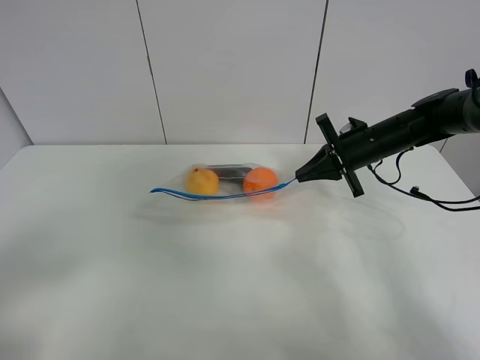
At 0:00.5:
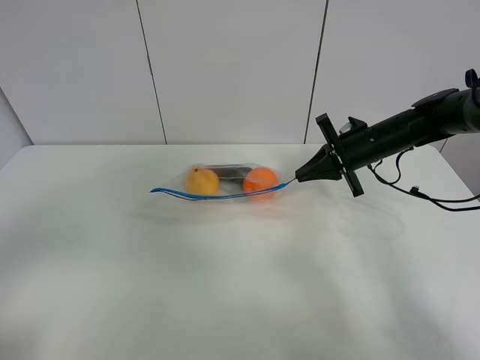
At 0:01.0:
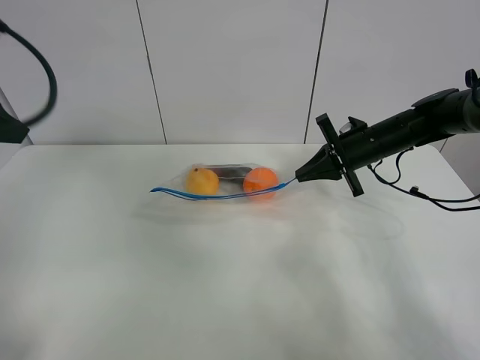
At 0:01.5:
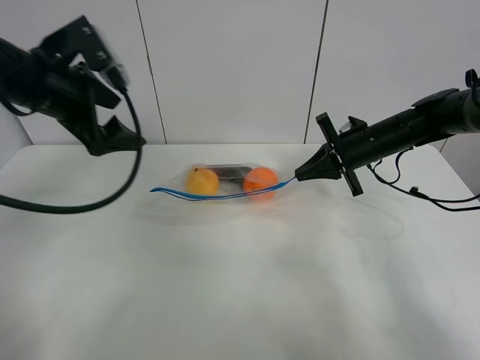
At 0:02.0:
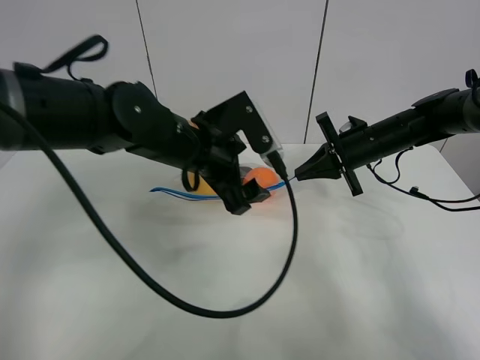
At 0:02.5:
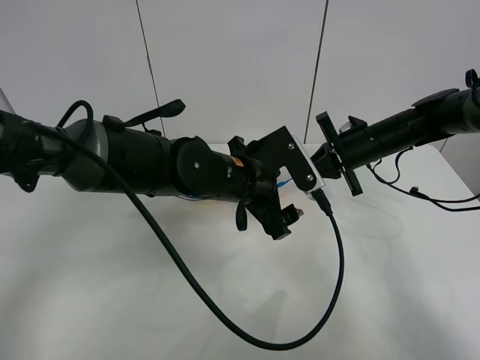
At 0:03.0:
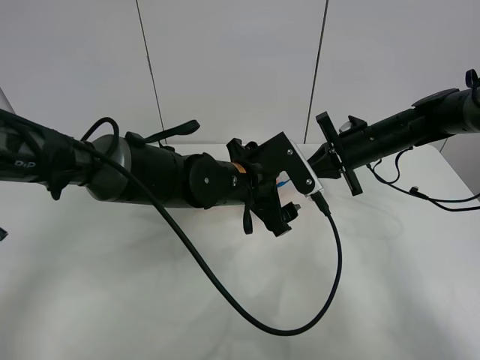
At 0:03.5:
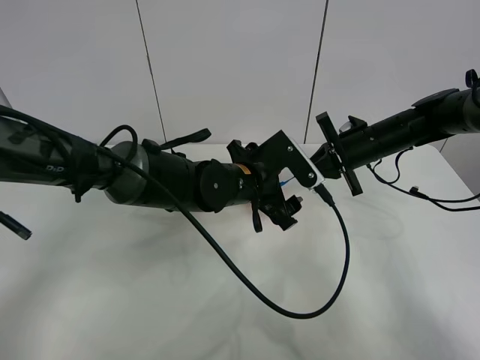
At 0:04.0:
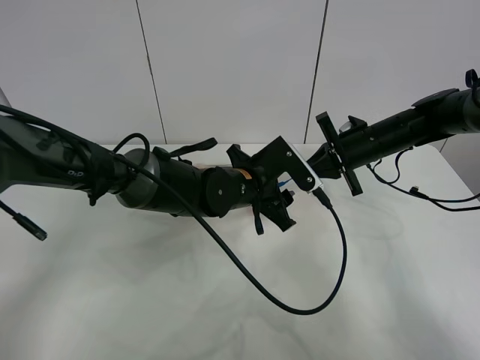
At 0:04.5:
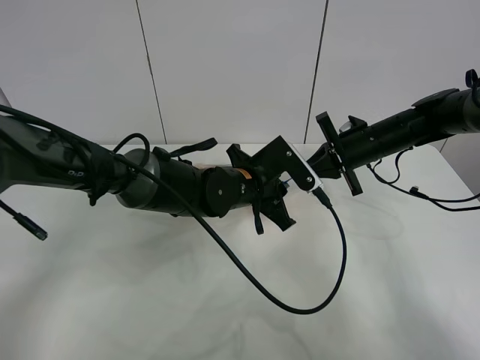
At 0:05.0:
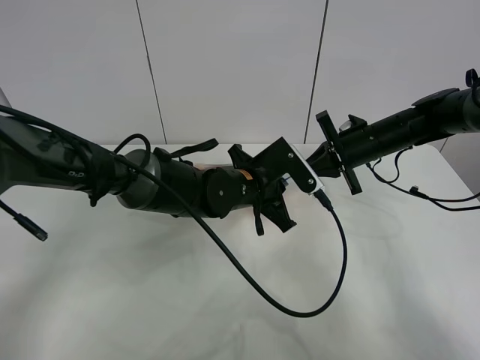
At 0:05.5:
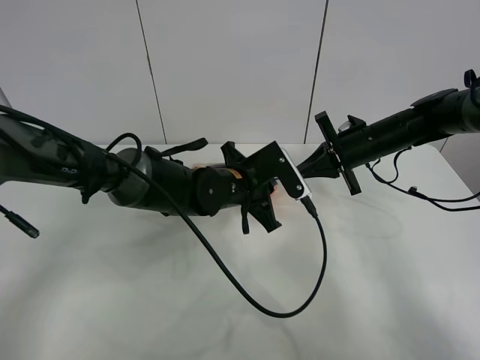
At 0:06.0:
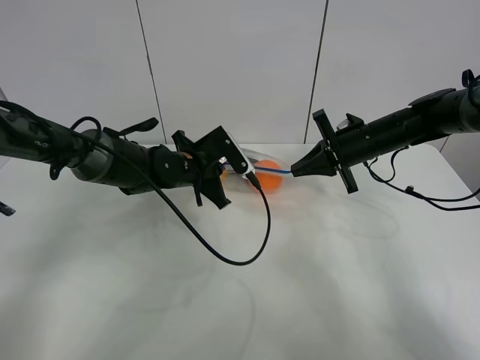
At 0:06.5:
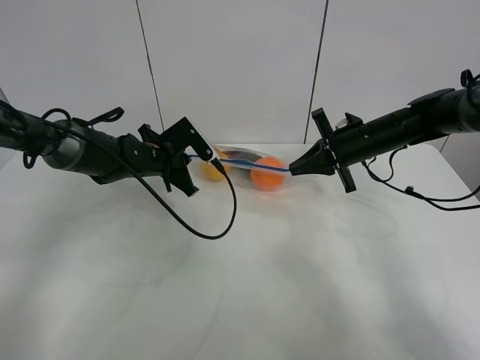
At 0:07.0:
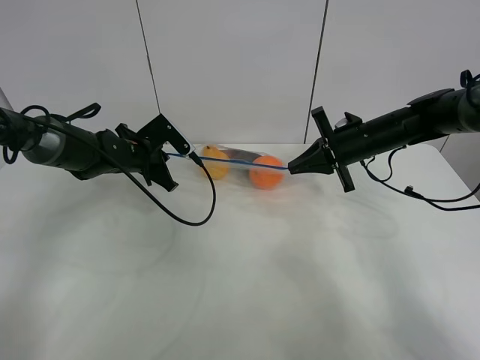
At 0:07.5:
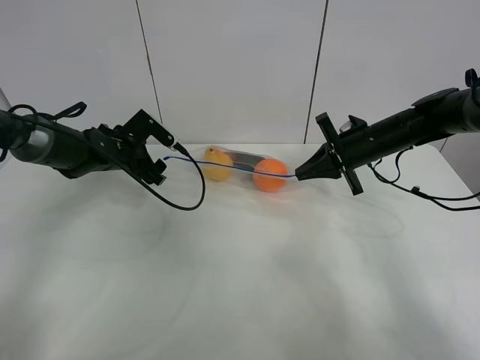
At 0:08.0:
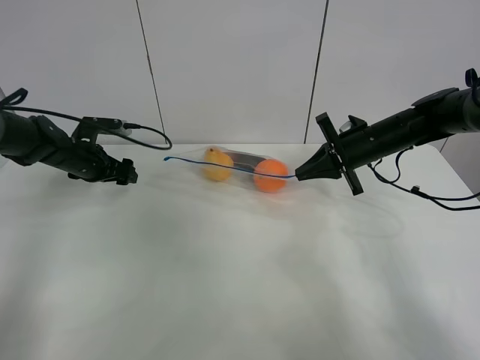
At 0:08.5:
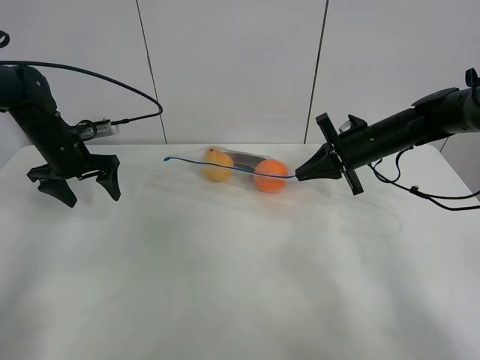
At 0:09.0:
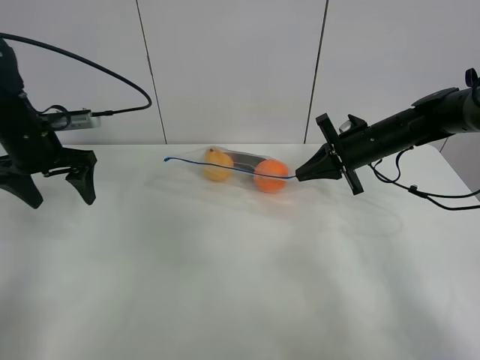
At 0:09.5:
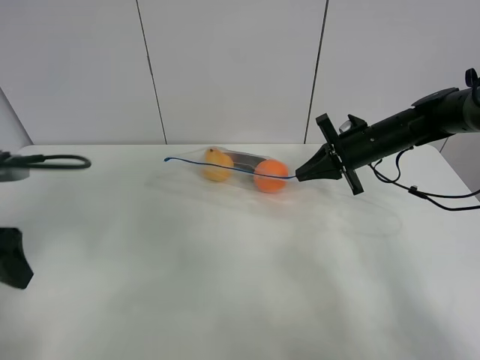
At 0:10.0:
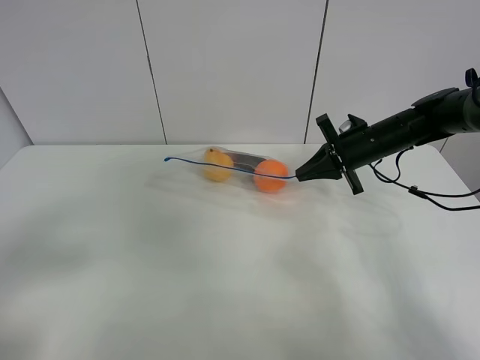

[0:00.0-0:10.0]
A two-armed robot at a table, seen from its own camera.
Step, 0:00.5 to 0:07.0: Pull the fruit bag with left gripper.
0:00.0 to 0:02.0: The left gripper travels forward and to the right by about 40 cm.
0:02.0 to 0:04.0: The left gripper shifts roughly 10 cm downward and to the right, and closes up.
0:04.0 to 0:06.0: The left gripper goes some 10 cm to the left and forward, and closes.
0:06.0 to 0:08.0: The left gripper moves to the left, roughly 20 cm, and opens.
0:08.0 to 0:10.0: The left gripper is displaced backward by about 35 cm.

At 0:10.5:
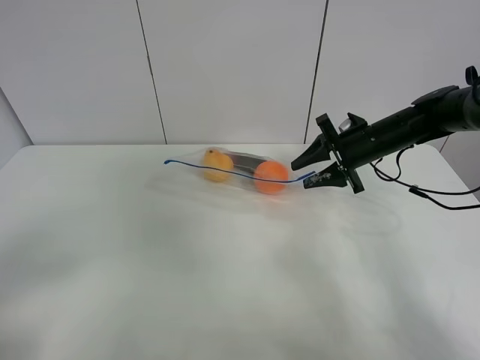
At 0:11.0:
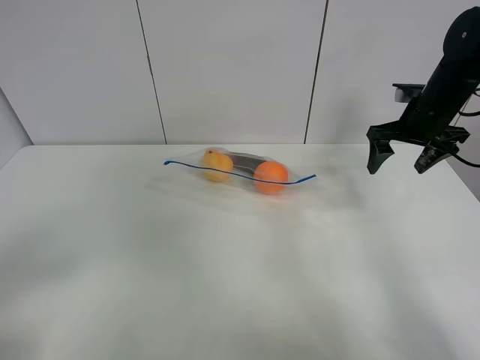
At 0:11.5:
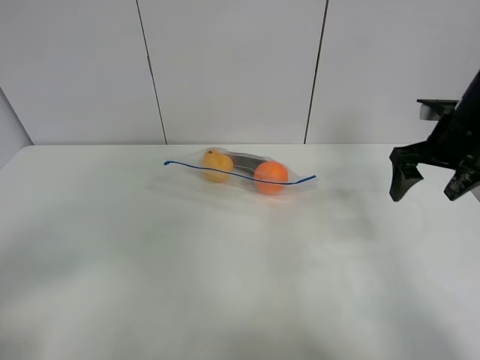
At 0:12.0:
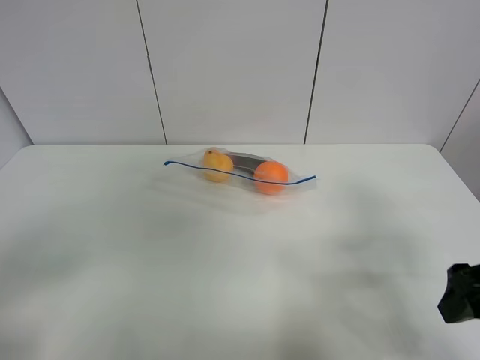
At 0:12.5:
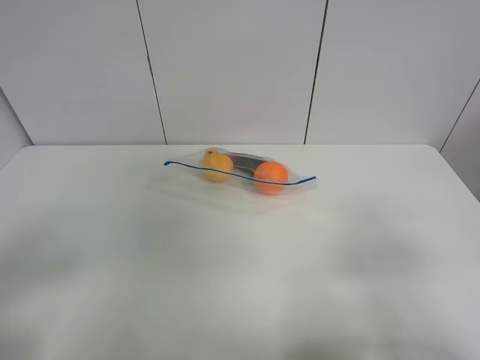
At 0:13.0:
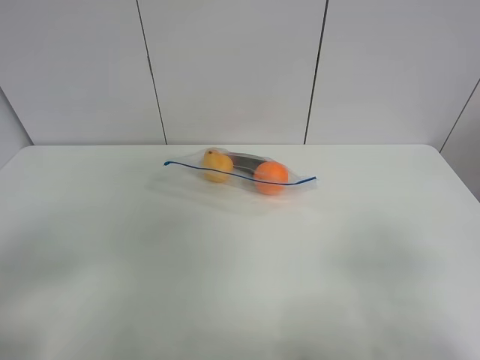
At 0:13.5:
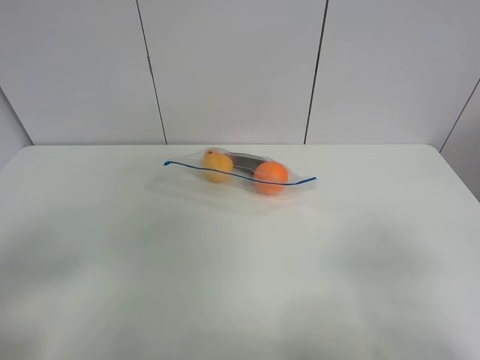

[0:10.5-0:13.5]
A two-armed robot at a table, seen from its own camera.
0:10.5 to 0:12.0: The right gripper goes roughly 25 cm backward.
0:12.0 to 0:13.5: The right gripper travels backward by some 15 cm.

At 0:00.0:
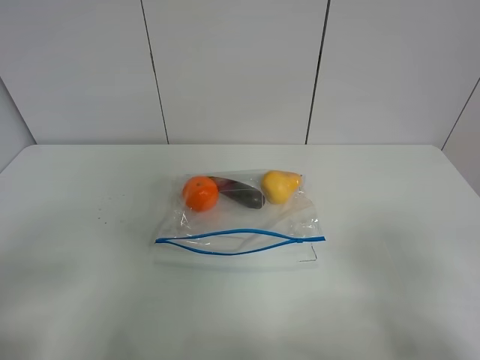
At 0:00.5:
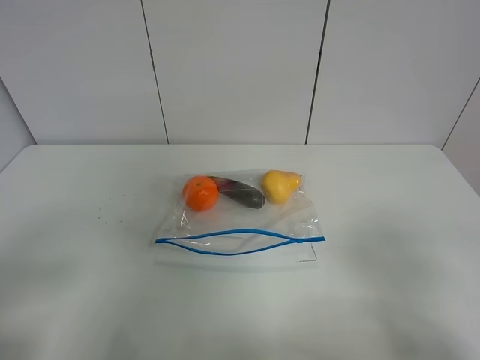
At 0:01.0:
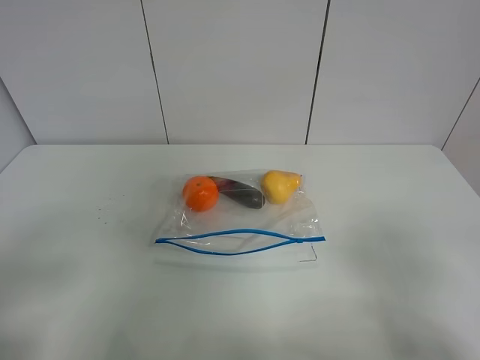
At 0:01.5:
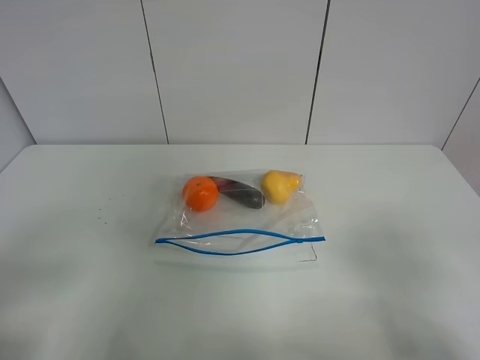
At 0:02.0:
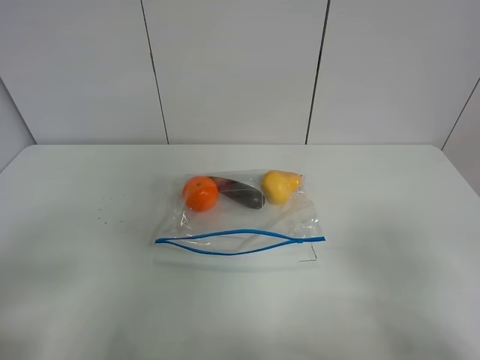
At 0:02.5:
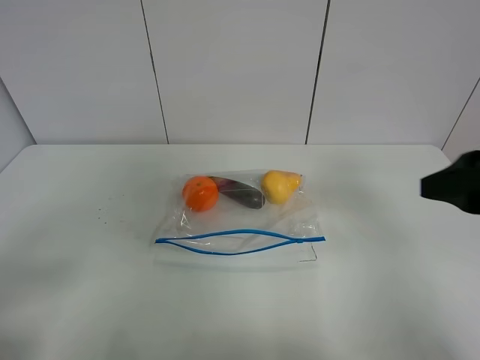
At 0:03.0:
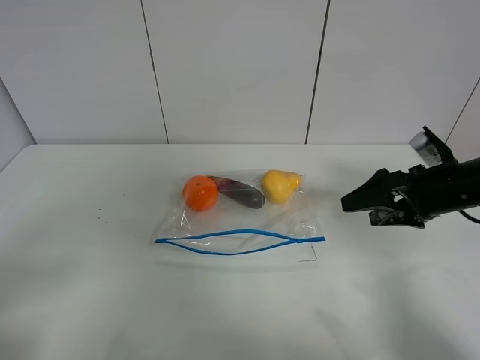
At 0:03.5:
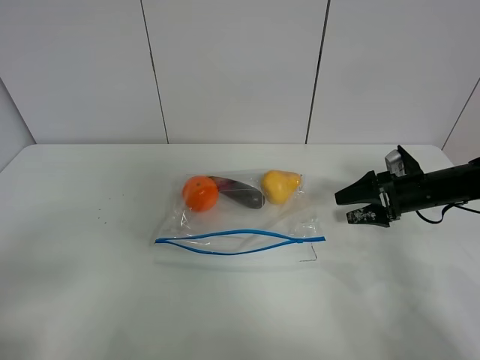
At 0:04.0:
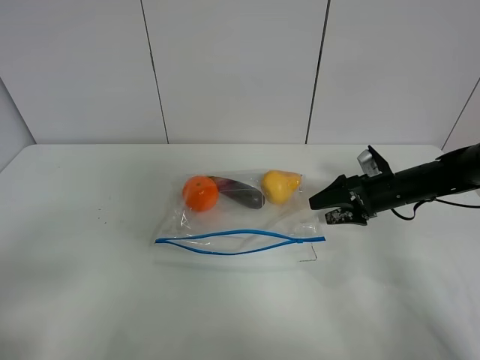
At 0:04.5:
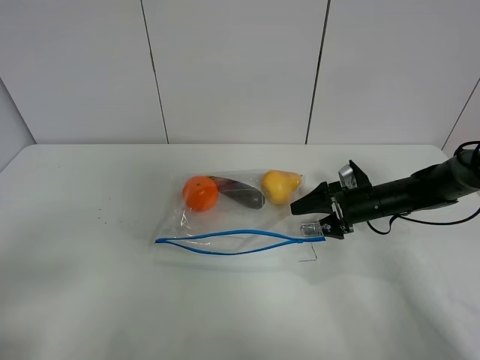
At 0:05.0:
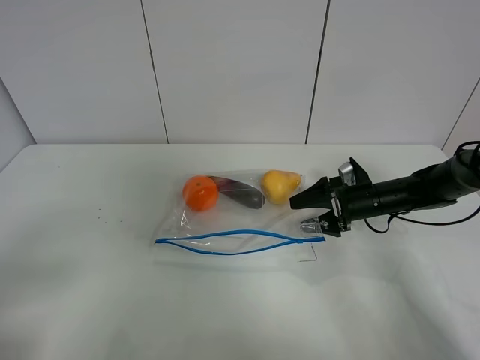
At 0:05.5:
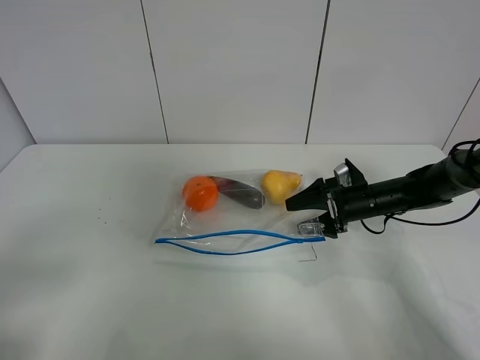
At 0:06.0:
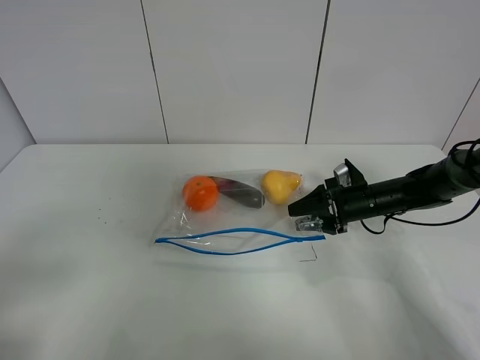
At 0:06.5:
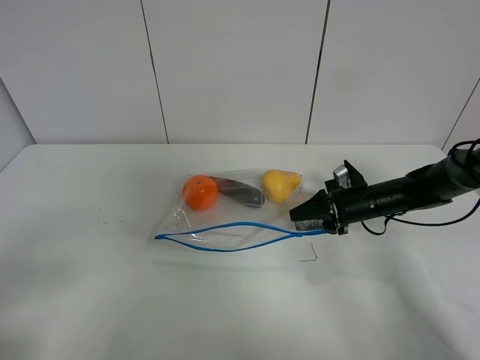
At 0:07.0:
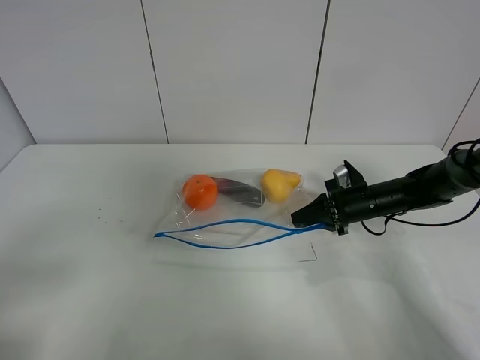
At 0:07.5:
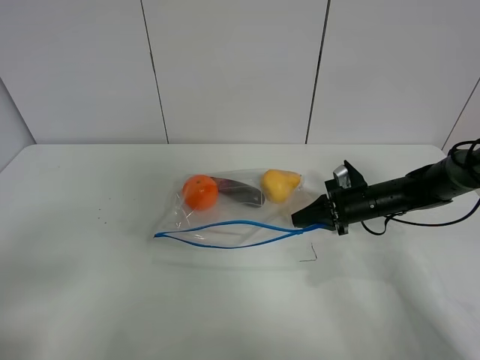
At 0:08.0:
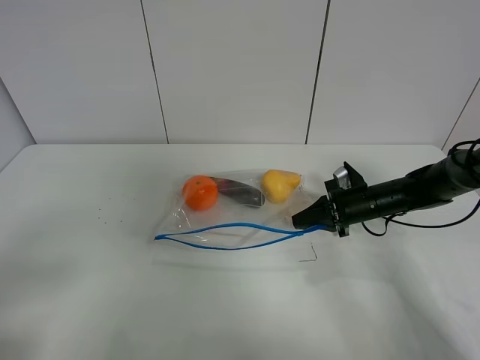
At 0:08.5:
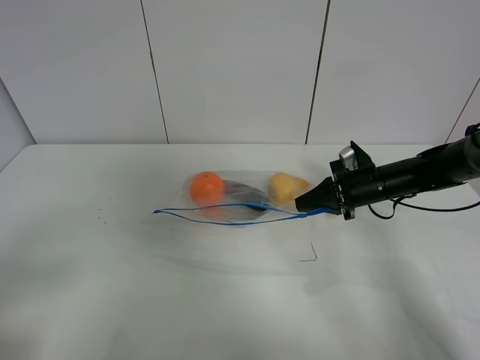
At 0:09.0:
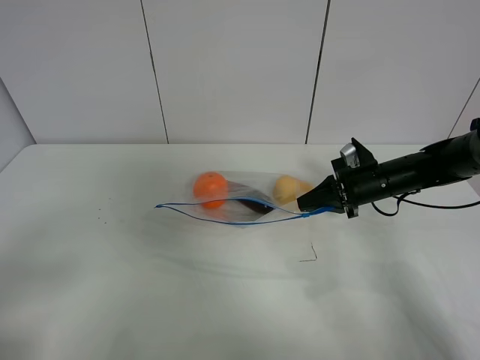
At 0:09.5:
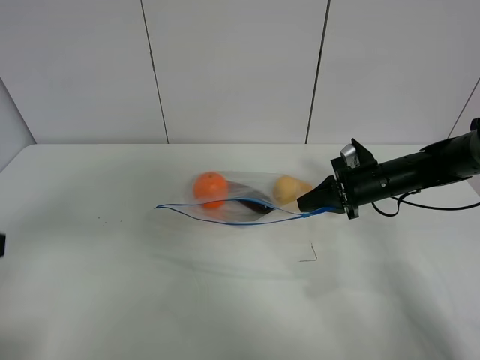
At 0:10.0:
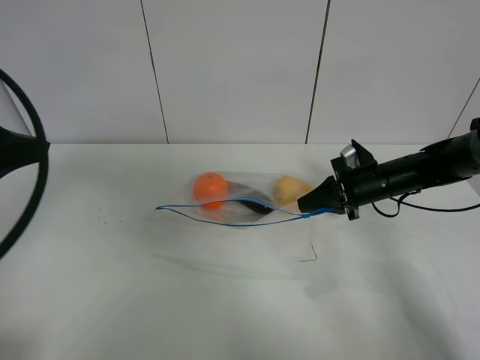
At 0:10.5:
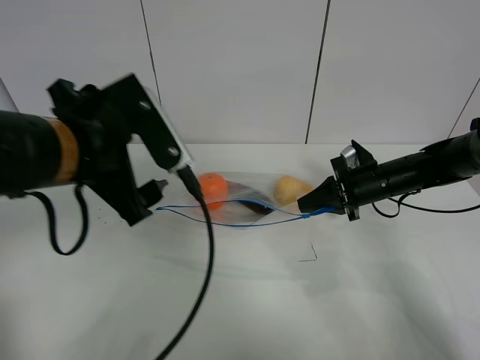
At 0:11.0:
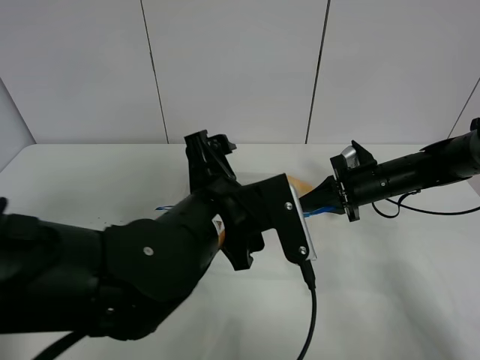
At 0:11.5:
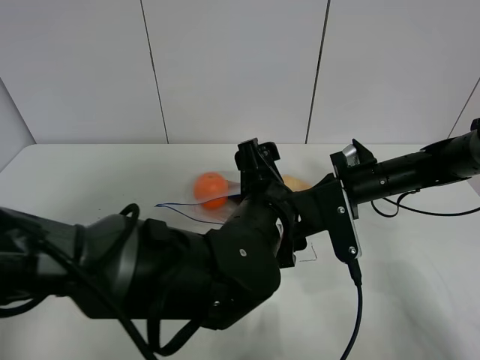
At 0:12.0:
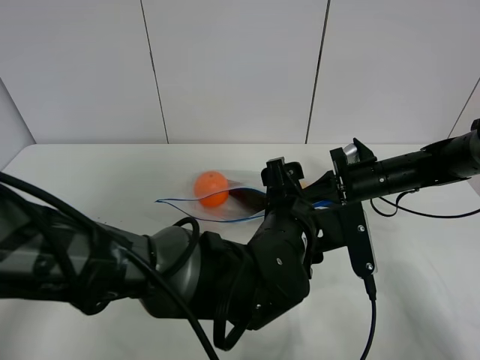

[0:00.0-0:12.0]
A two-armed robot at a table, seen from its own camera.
Step, 0:00.0 to 0:07.0: Grasp the fruit bag with right gripper.
Step, 0:07.5 to 0:08.5: Lift the fruit bag with your right gripper.
0:00.0 to 0:02.0: Neither gripper changes place.
0:02.0 to 0:04.0: The right gripper moves forward and downward, roughly 40 cm.
0:04.0 to 0:06.0: The right gripper closes up.
0:06.0 to 0:08.0: The right gripper closes up.
0:08.0 to 0:10.0: The left gripper travels forward and upward by approximately 20 cm. The right gripper shifts approximately 5 cm upward.
0:10.0 to 0:12.0: The left gripper travels to the right and downward by some 40 cm.
